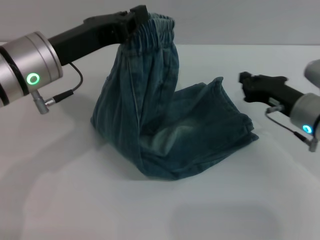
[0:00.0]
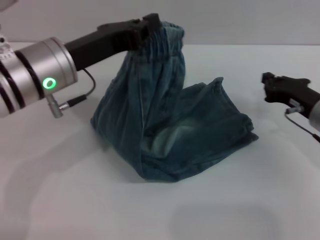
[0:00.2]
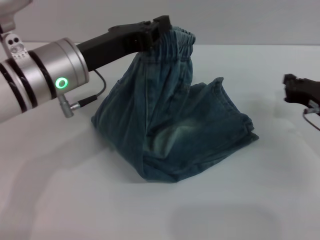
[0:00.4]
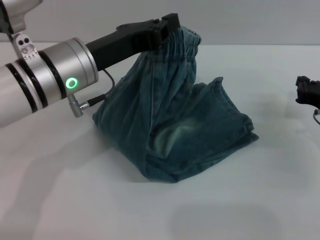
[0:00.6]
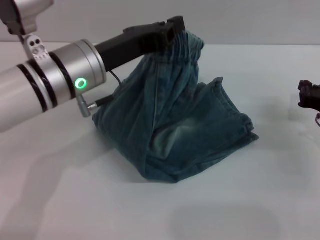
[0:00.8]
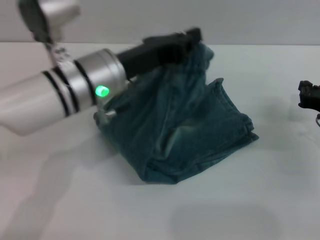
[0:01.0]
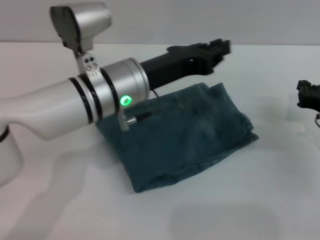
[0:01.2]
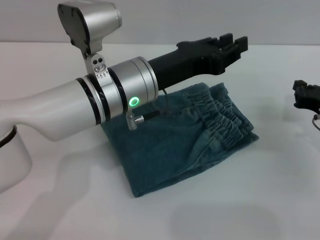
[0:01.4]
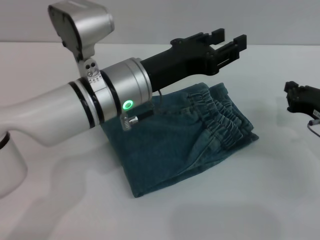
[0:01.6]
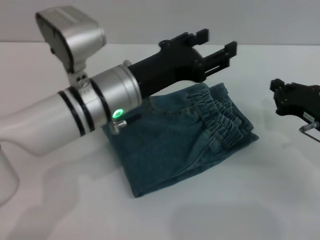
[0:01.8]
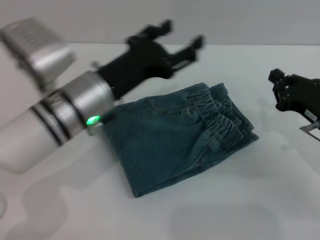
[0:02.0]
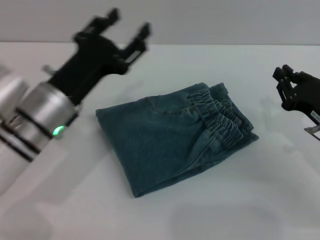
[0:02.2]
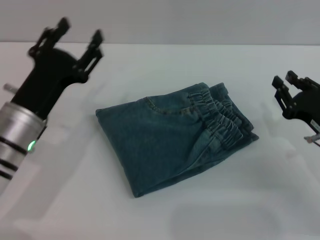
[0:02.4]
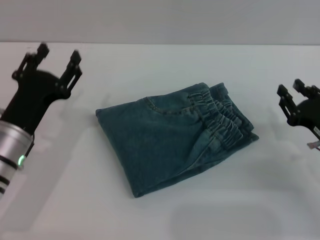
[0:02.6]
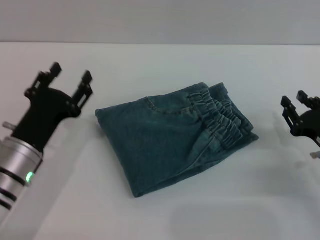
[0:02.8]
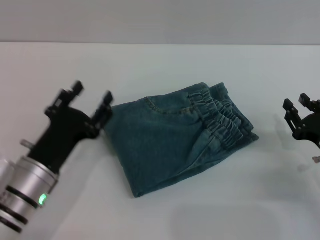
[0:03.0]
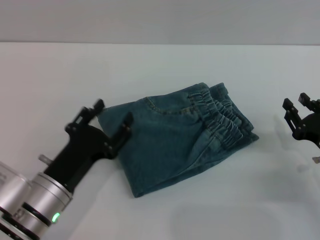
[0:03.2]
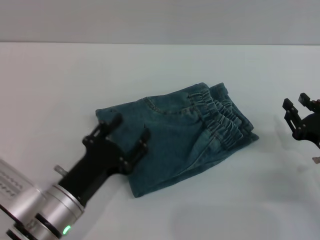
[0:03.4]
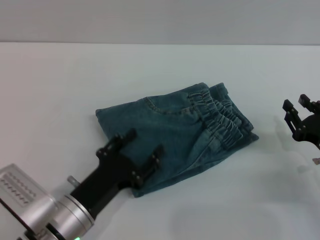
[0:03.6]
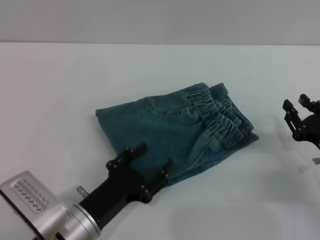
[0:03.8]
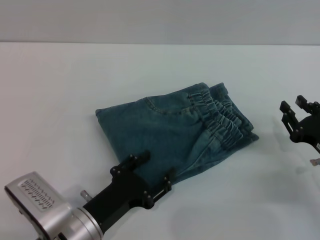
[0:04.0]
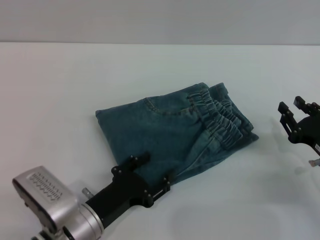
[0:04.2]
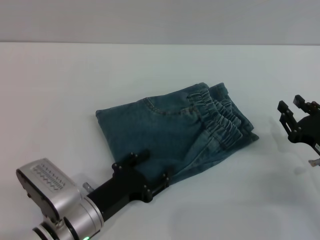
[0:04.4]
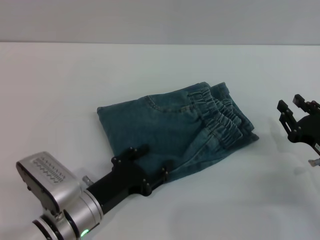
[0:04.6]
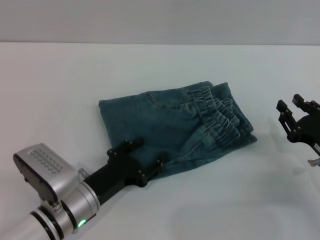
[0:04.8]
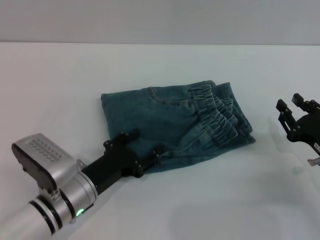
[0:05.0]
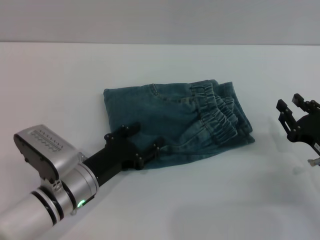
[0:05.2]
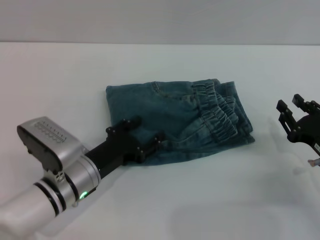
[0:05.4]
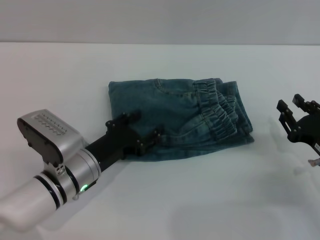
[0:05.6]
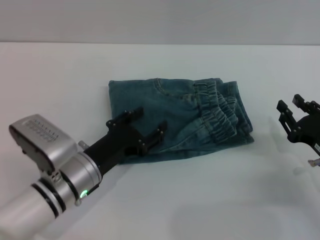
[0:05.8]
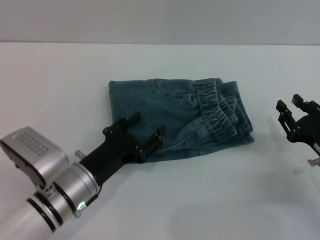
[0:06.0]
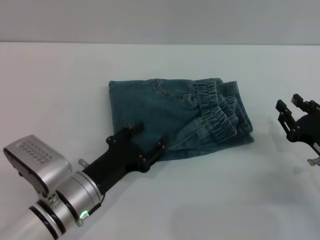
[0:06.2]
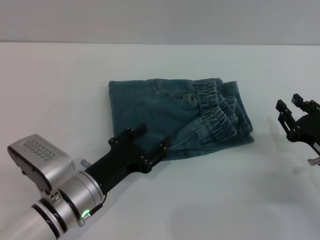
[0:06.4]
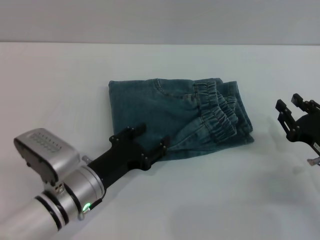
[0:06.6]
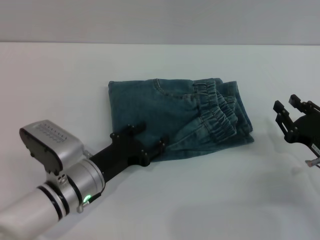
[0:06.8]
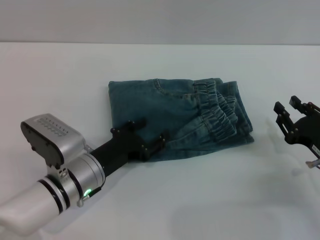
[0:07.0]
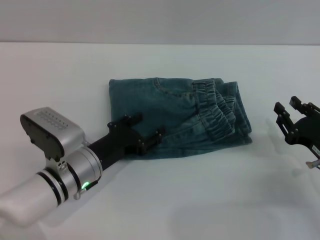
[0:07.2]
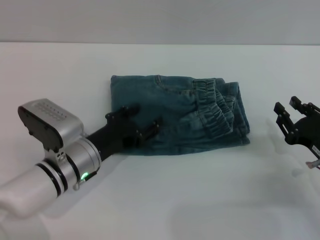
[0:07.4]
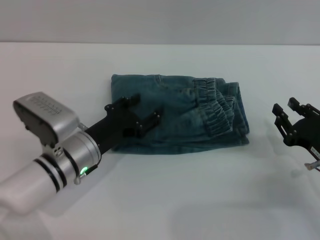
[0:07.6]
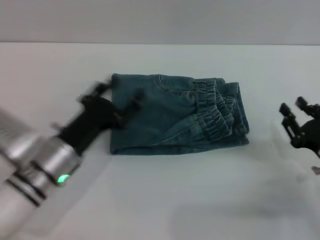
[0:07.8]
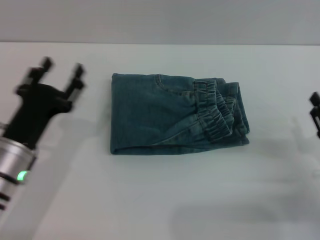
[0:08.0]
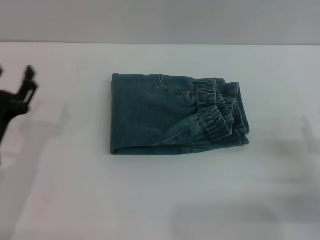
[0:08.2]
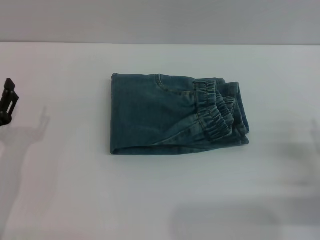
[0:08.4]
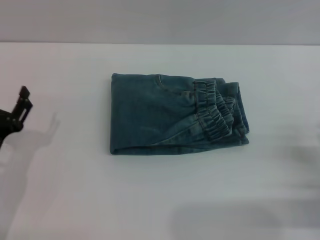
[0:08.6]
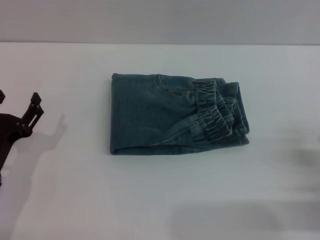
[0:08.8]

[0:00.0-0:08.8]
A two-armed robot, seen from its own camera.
Step, 0:01.4 to 0:07.8: Place the folded trousers onto the center area with the left grippers.
0:00.0 to 0:01.4: The right gripper moves to the right, some 5 cm. Meanwhile the left gripper shifts some 10 cm to the right.
0:01.4 to 0:03.0: The left gripper goes roughly 20 cm to the left, downward and backward, and opens; the right gripper heads backward, covering about 5 cm.
0:03.0 to 0:04.4: The left gripper ends up about 5 cm from where it was.
0:04.4 to 0:05.8: The left gripper shifts approximately 5 cm forward.
0:05.8 to 0:07.4: There are only small adjustments of the grippers.
0:07.4 to 0:08.8: The right gripper shifts by approximately 5 cm. The left gripper travels to the left and backward by approximately 15 cm.
